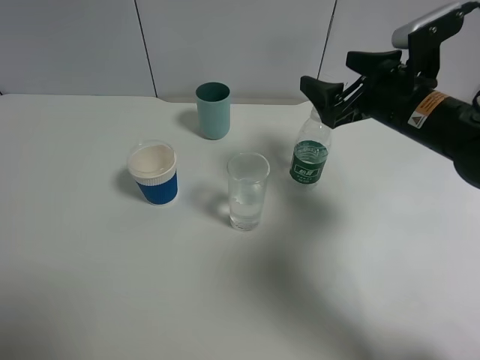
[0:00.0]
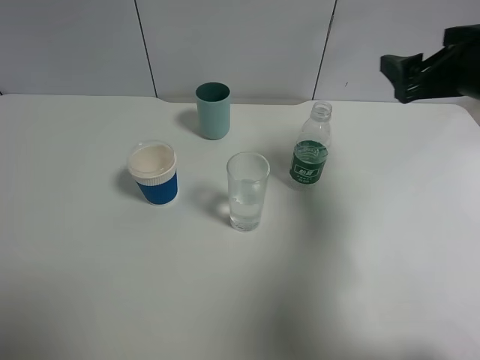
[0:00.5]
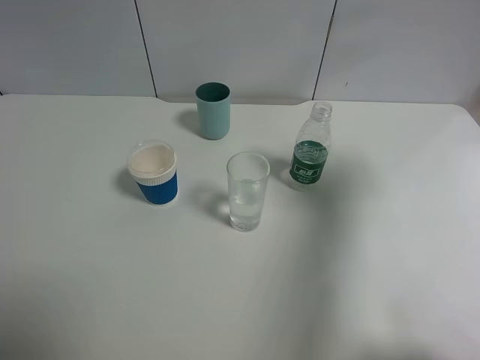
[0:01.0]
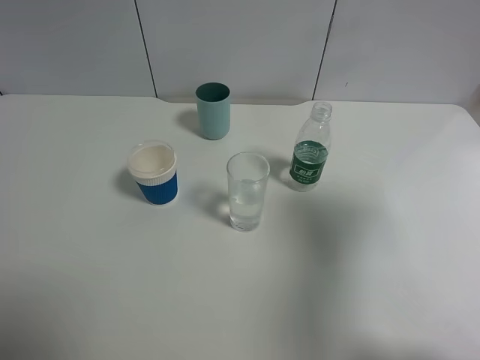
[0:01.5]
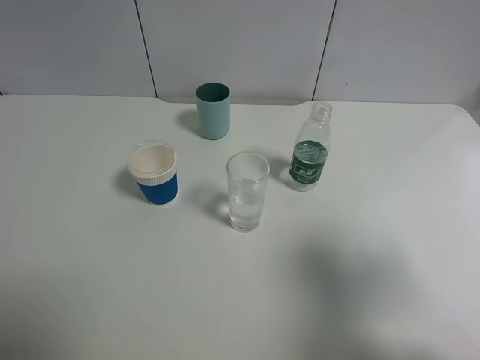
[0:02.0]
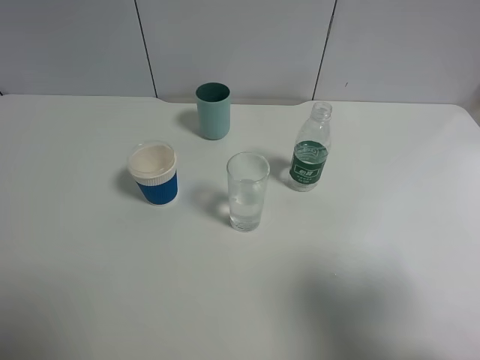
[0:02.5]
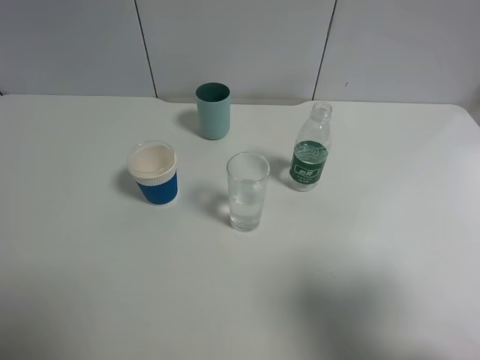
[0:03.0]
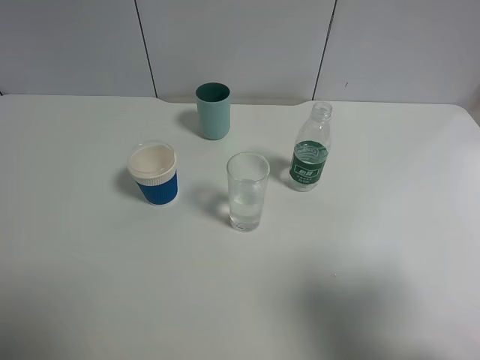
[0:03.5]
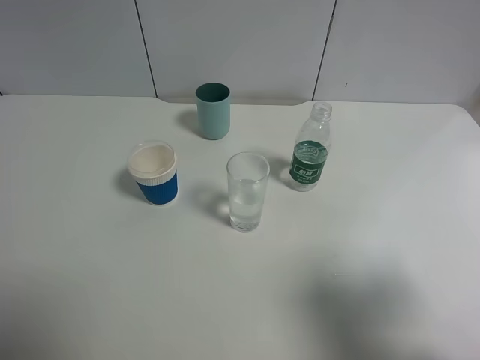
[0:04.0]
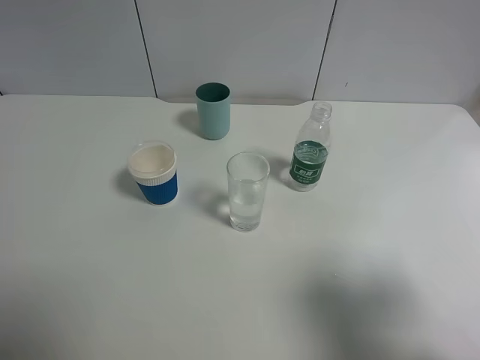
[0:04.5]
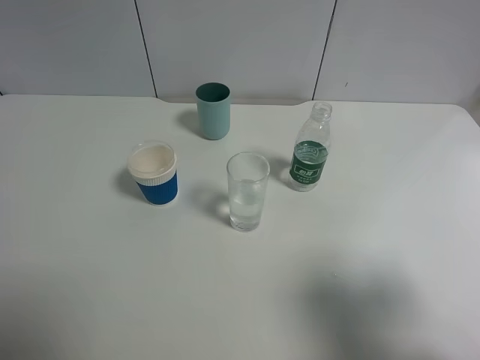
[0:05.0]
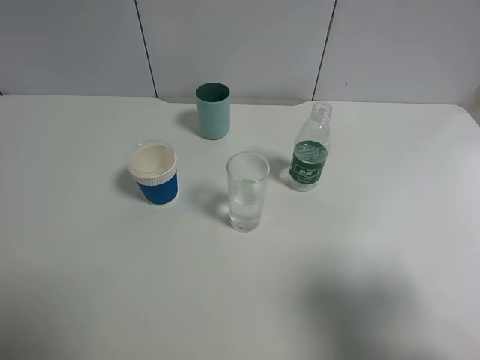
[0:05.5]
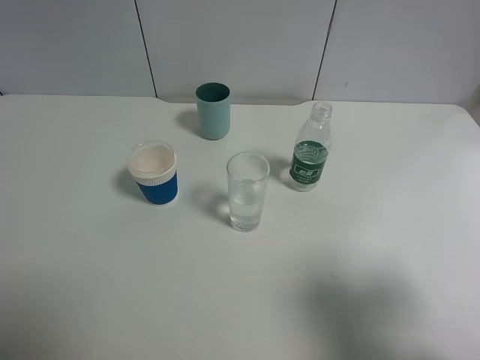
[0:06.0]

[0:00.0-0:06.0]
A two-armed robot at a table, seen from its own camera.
Task of the whole recording: use a gripper to hold the bottle of the drink and pour it into a random cup.
0:00.0 to 0:02.0: The right gripper goes about 25 cm backward.
0:02.0 to 0:04.0: There are only small adjustments of the grippers.
